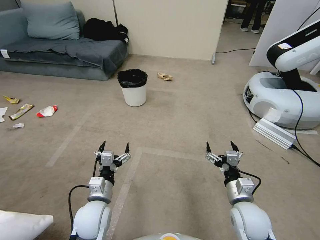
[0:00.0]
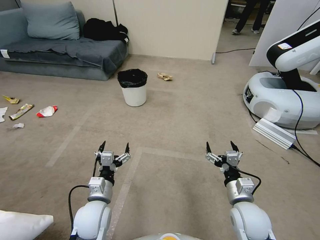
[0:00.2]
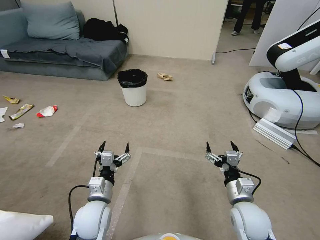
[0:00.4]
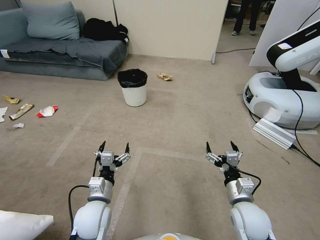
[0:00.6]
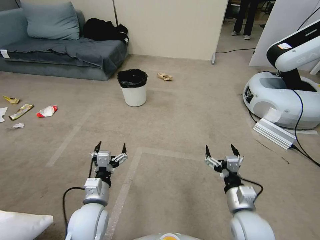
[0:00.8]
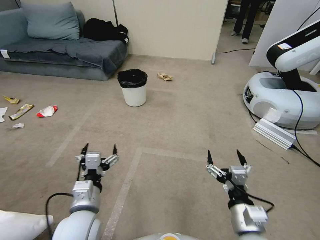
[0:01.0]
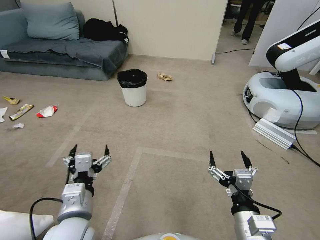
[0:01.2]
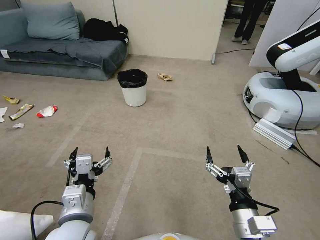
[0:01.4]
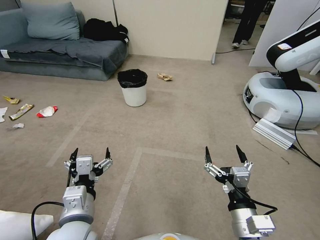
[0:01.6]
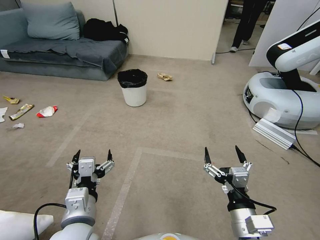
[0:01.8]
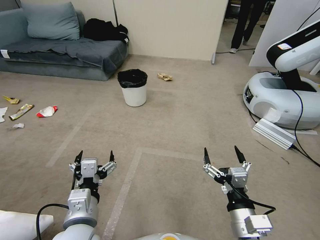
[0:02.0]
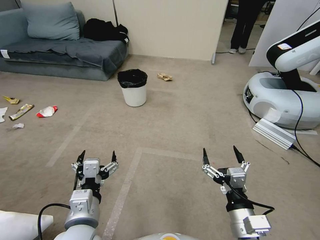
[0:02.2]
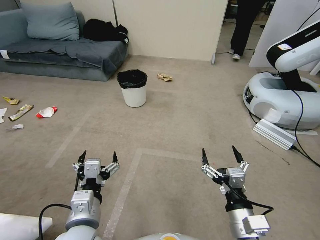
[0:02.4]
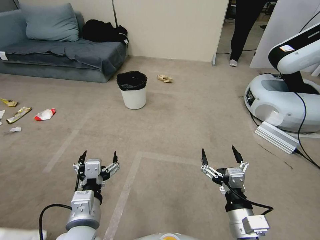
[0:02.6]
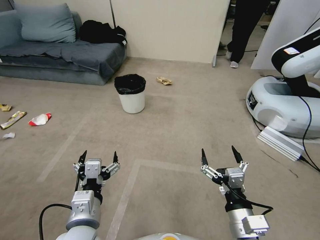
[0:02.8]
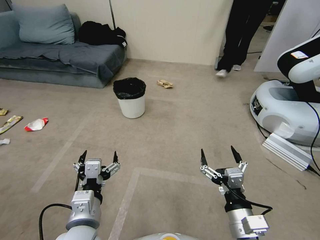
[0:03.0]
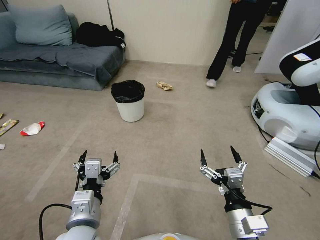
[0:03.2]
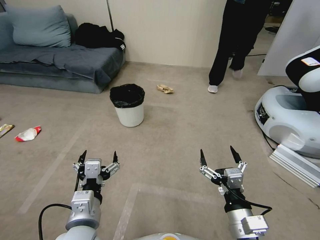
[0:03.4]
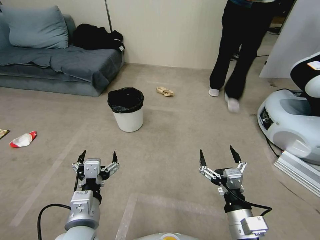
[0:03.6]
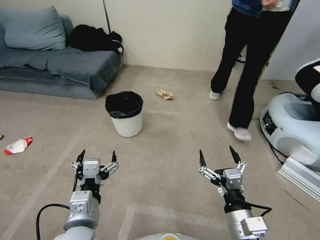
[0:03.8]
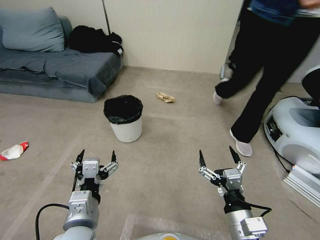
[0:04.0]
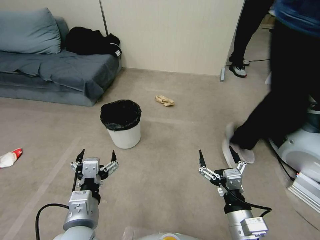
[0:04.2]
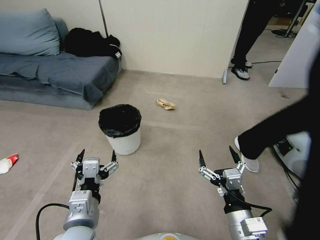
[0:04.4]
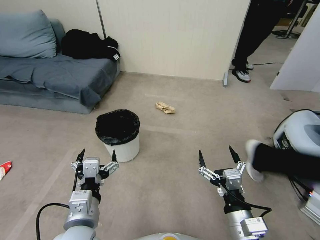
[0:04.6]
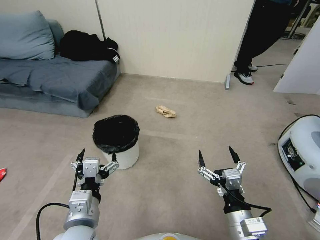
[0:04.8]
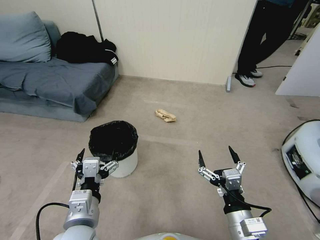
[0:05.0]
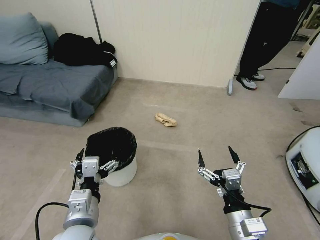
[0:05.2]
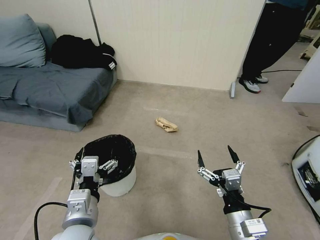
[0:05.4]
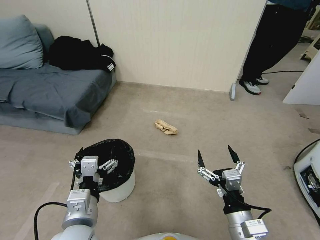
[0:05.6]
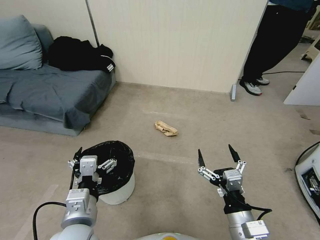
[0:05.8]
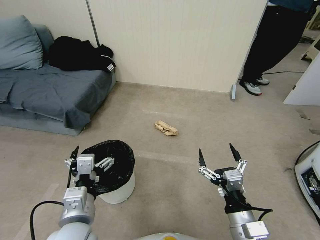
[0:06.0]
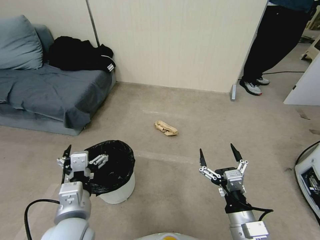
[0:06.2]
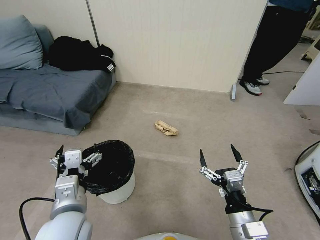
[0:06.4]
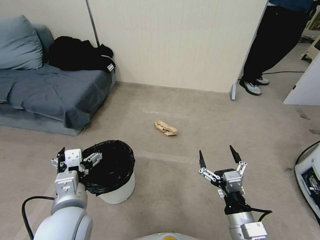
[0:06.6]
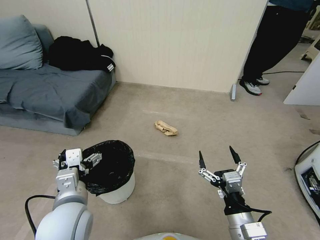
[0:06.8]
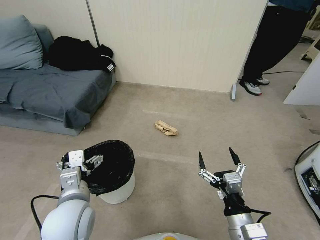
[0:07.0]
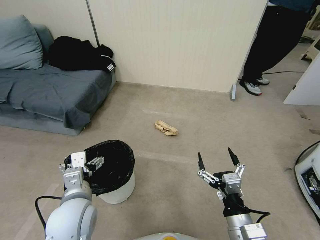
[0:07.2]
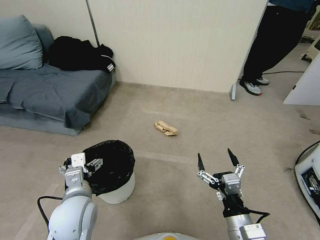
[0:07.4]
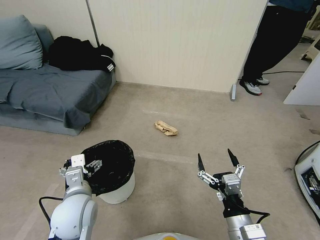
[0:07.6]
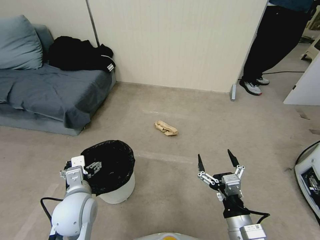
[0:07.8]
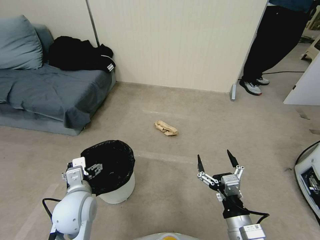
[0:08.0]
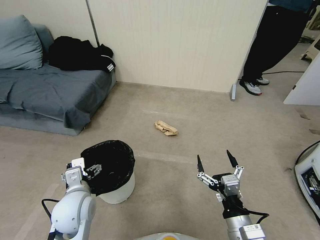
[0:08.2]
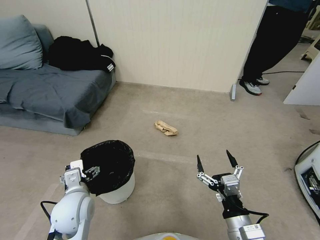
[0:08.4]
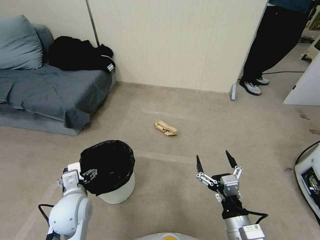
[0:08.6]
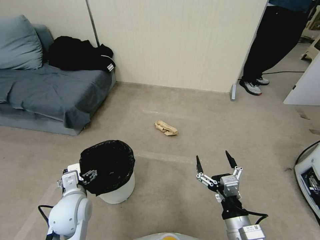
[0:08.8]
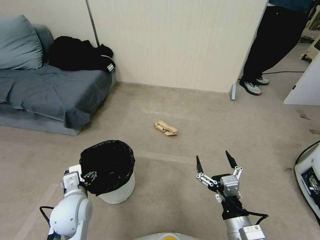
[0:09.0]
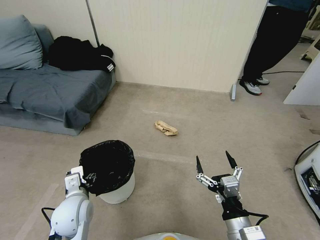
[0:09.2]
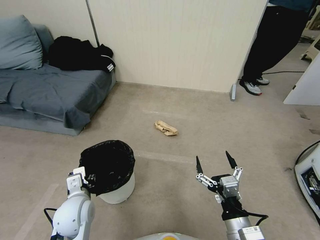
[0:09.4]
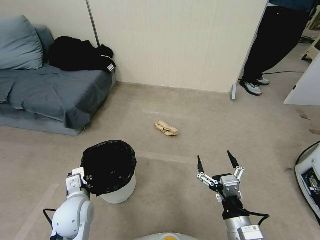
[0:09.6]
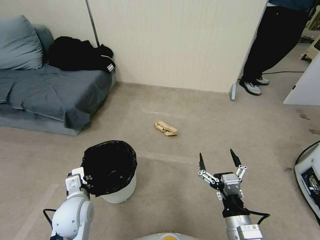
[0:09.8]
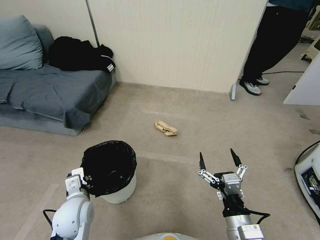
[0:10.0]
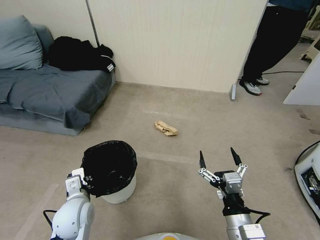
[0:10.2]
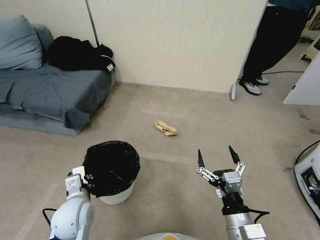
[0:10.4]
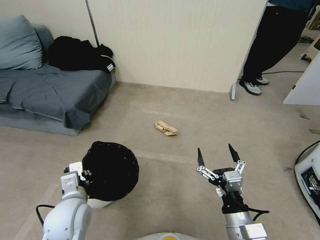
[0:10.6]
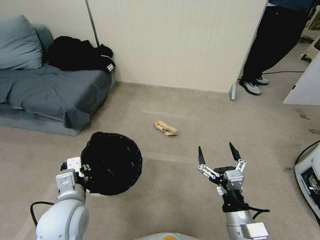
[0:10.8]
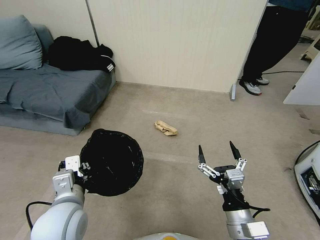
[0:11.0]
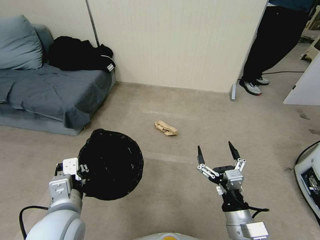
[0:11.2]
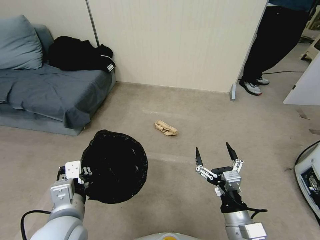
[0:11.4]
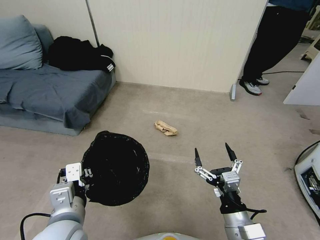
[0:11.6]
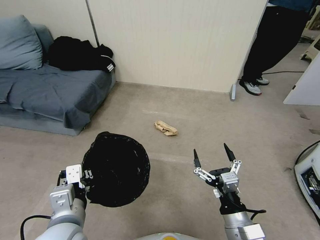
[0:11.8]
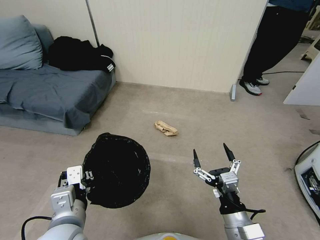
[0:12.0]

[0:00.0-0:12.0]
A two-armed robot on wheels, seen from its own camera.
Task of the whole recording: Pick up the trash bin, then pick up the garbage from the floor and place it into the trash bin.
0:06.0 to 0:07.6: The left gripper is displaced forward by roughly 5 cm.
0:07.6 to 0:09.0: The left gripper ends up about 5 cm from where it was.
0:09.0 to 0:10.4: The left gripper closes its fingers.
0:10.4 to 0:12.0: The left gripper goes approximately 10 cm upward and backward.

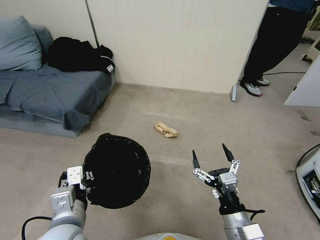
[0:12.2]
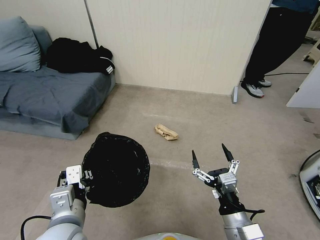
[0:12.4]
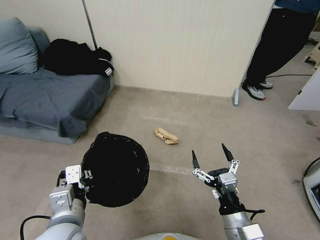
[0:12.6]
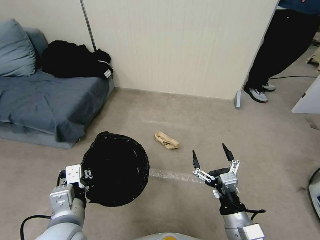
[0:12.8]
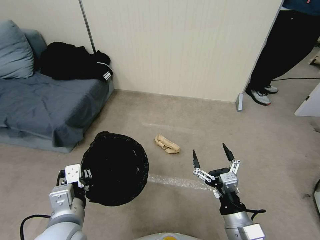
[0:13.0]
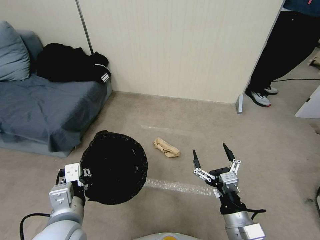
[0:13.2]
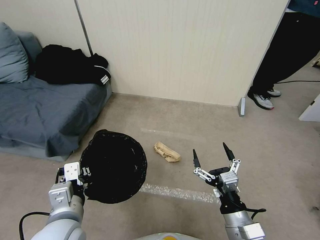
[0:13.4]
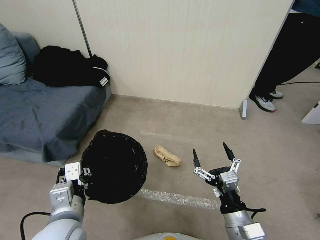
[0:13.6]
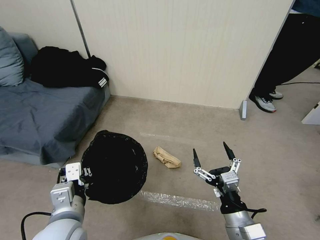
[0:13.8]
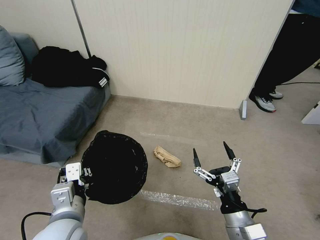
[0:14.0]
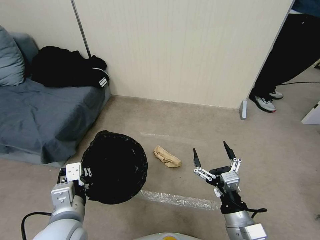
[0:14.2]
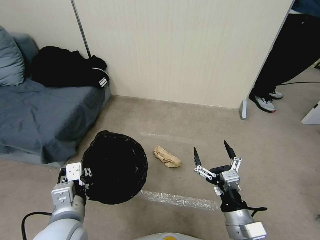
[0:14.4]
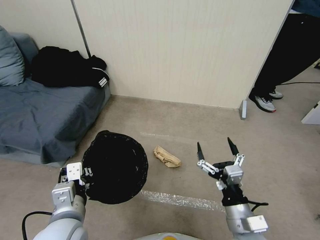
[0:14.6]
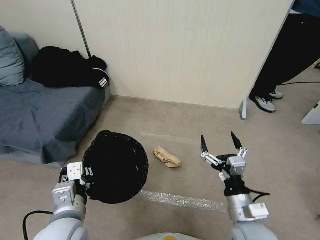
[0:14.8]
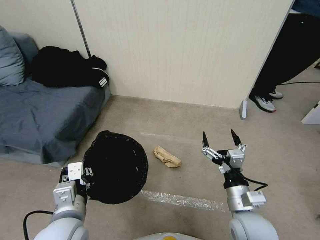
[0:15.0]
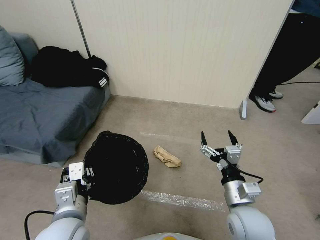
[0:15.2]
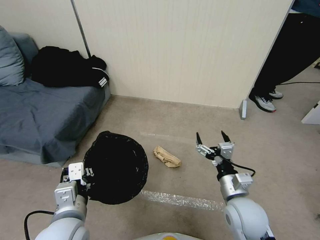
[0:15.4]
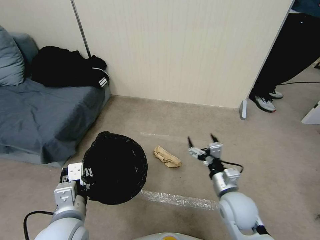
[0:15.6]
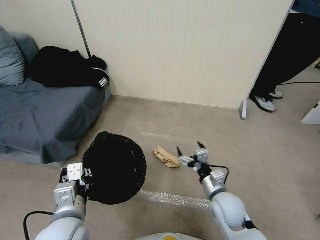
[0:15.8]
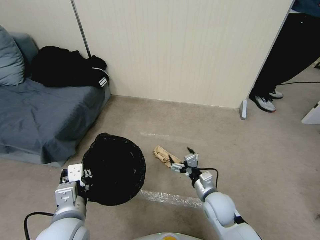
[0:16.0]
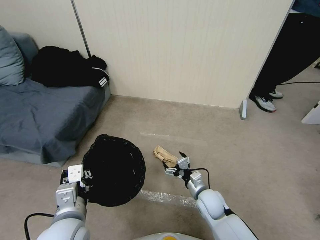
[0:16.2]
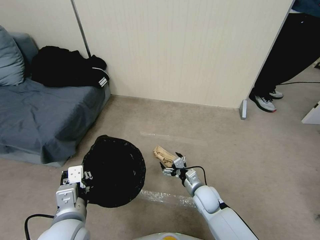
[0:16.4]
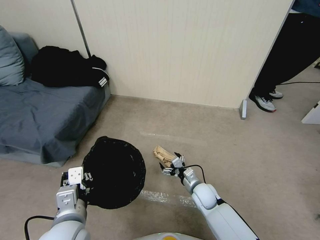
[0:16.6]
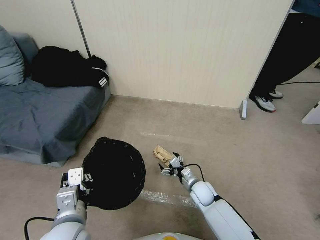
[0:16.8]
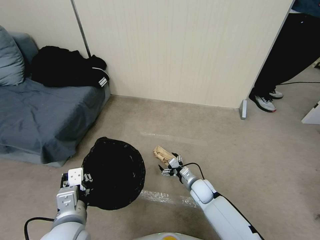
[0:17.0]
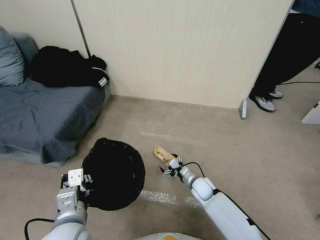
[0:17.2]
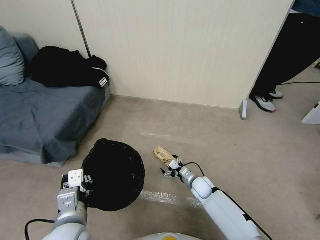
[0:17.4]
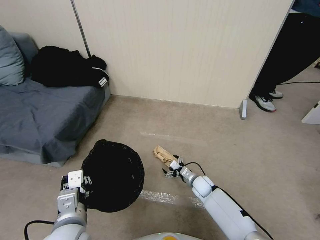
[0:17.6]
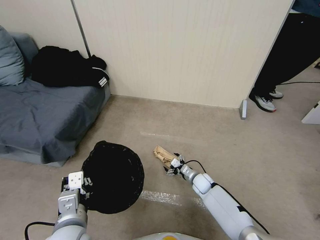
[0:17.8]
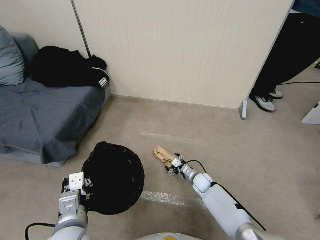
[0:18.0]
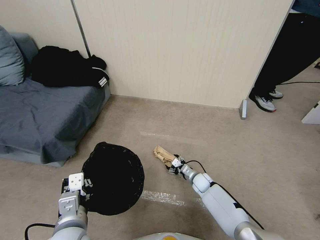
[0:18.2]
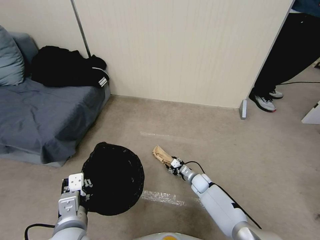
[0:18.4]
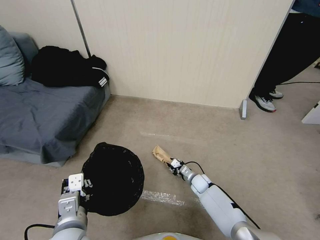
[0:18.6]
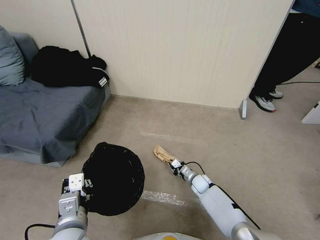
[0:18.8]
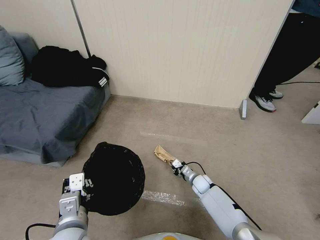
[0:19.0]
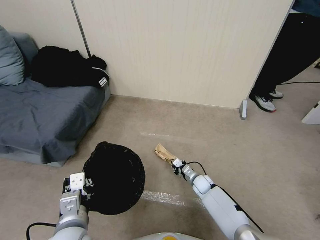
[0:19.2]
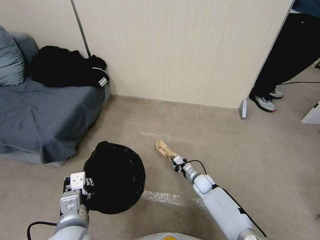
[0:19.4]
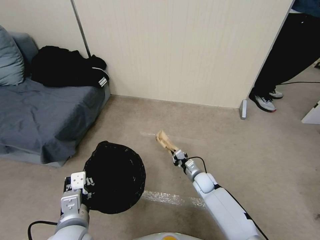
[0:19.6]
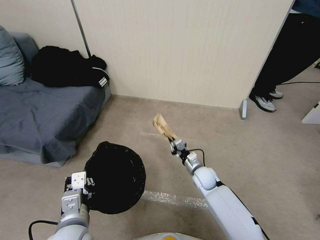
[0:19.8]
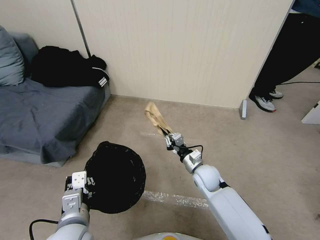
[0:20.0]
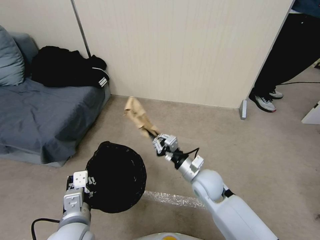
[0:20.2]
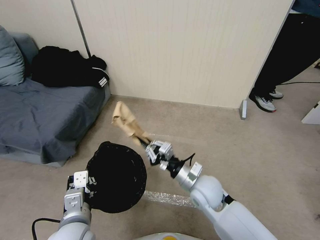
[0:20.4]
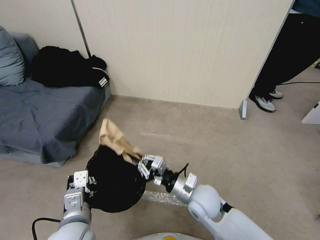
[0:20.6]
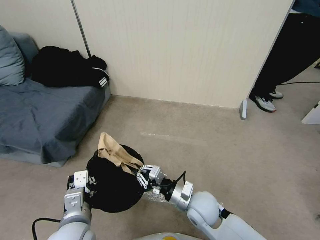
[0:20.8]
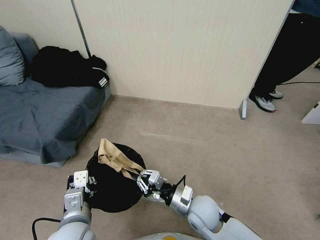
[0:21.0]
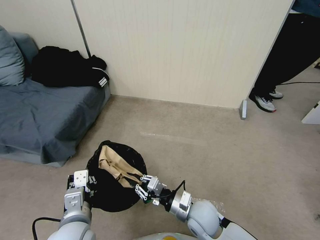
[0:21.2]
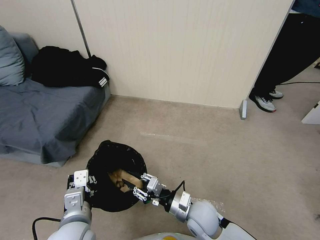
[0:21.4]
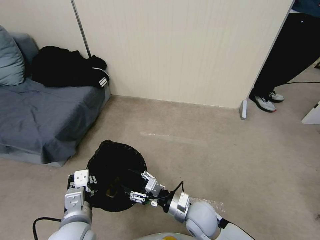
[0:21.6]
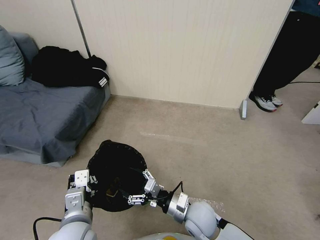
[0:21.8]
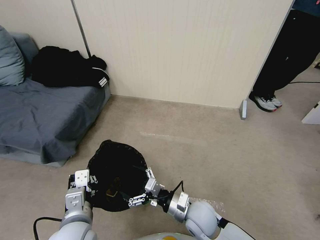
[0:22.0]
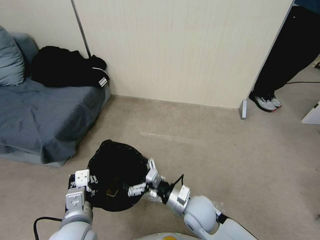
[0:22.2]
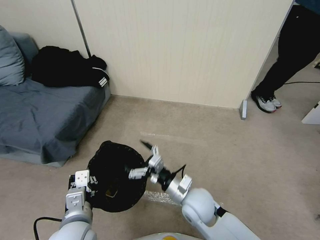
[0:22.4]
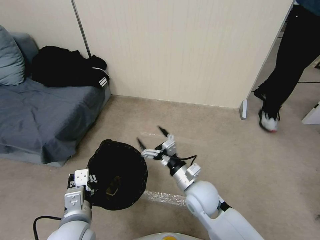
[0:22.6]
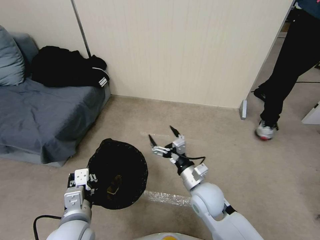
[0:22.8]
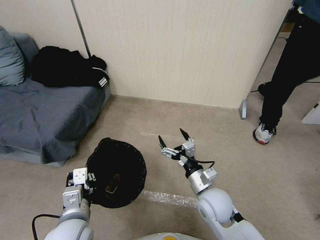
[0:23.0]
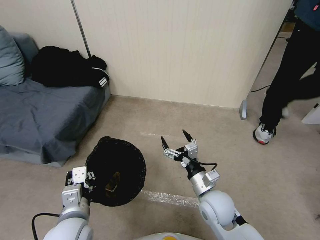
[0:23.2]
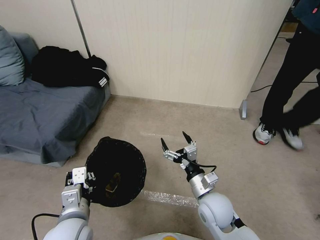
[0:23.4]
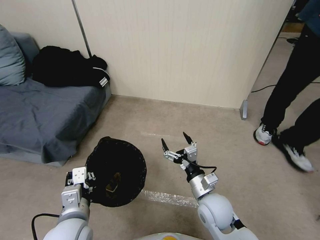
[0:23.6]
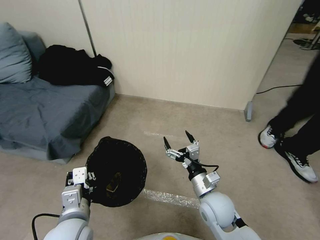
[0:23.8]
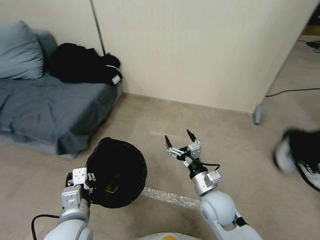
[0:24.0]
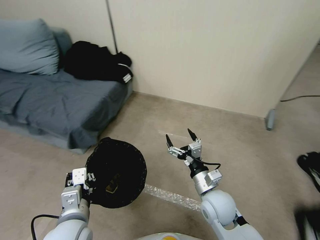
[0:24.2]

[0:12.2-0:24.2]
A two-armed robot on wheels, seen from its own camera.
Task of the whole recording: Pick up the trash bin, then pick up the garbage from the floor and place it into the trash bin.
0:13.8 to 0:15.2: The right gripper moves forward, roughly 5 cm.
0:15.2 to 0:16.6: The right gripper heads downward and forward, covering about 20 cm.
0:16.6 to 0:18.2: The right gripper goes approximately 10 cm downward and forward.
0:18.2 to 0:19.8: The right gripper goes roughly 10 cm upward, and closes its fingers.
0:19.8 to 0:21.2: The right gripper travels backward and upward by approximately 15 cm.
0:21.2 to 0:22.6: The right gripper moves upward, roughly 5 cm, and opens up.
0:22.6 to 0:24.2: The right gripper moves about 5 cm.
